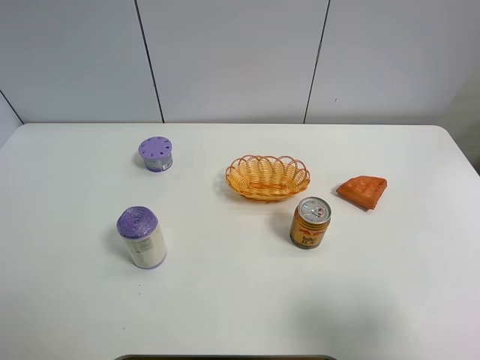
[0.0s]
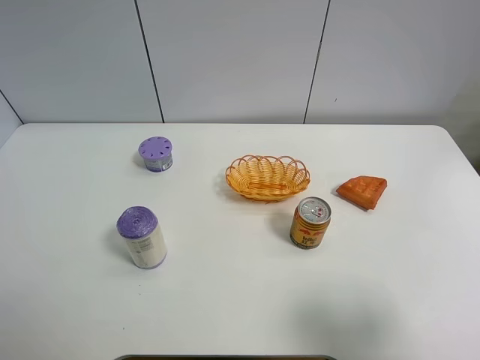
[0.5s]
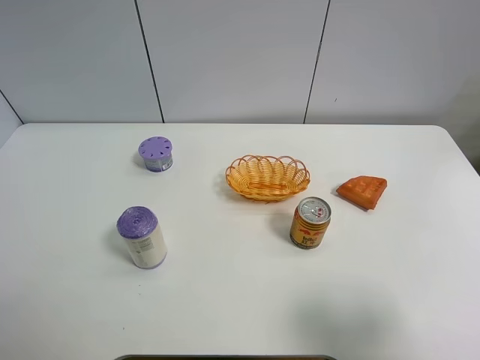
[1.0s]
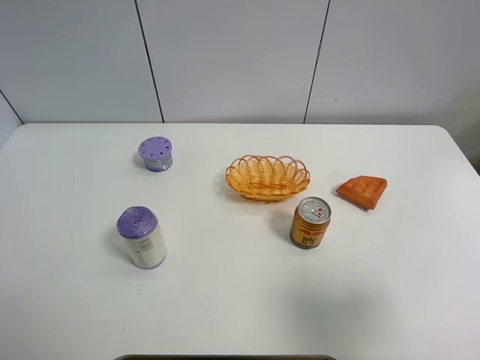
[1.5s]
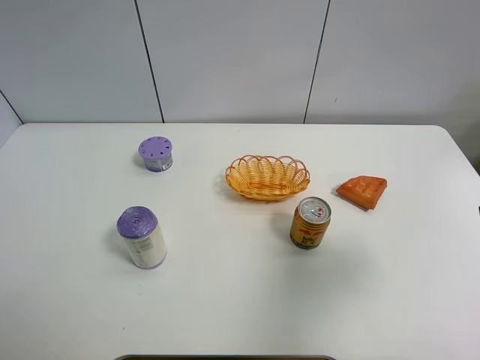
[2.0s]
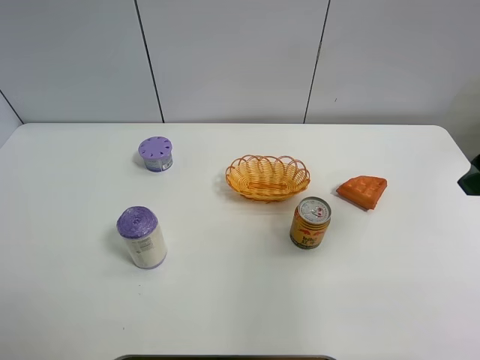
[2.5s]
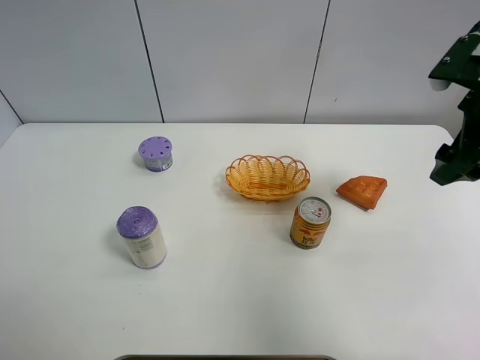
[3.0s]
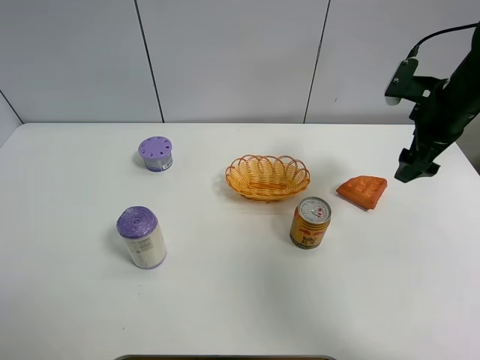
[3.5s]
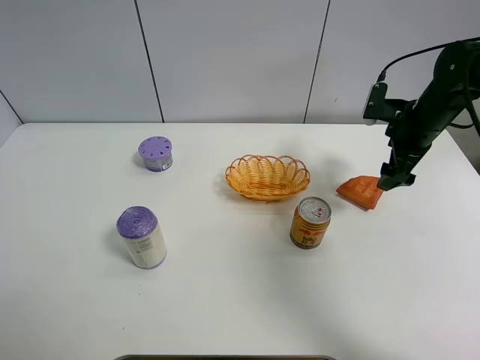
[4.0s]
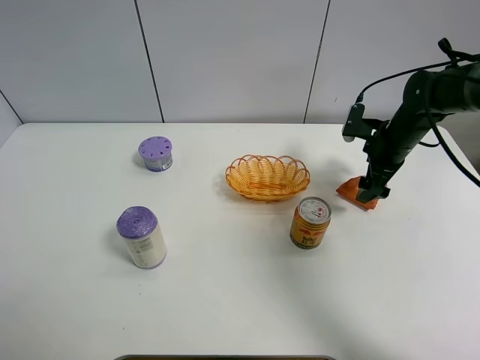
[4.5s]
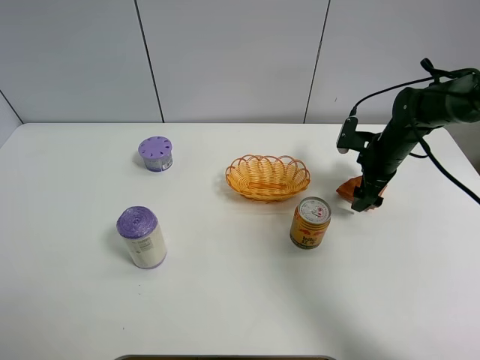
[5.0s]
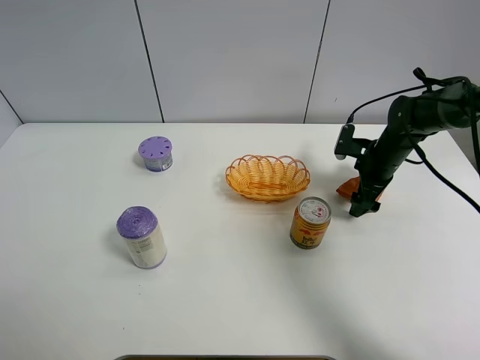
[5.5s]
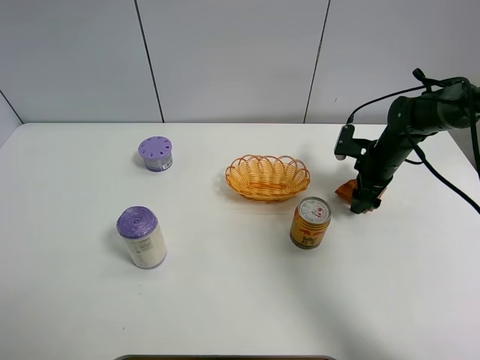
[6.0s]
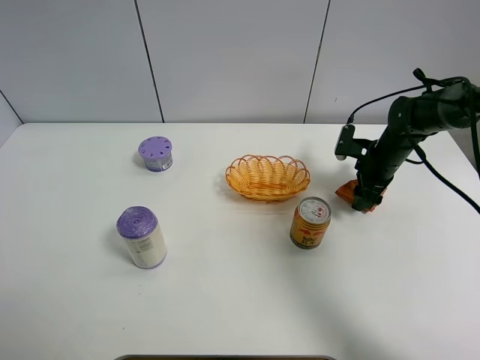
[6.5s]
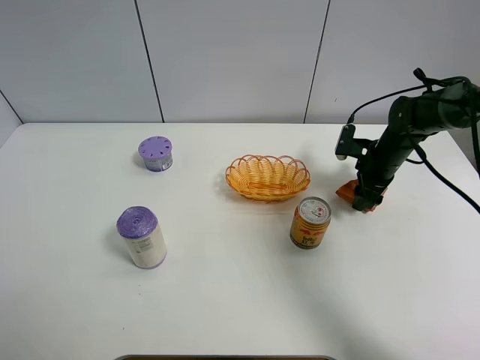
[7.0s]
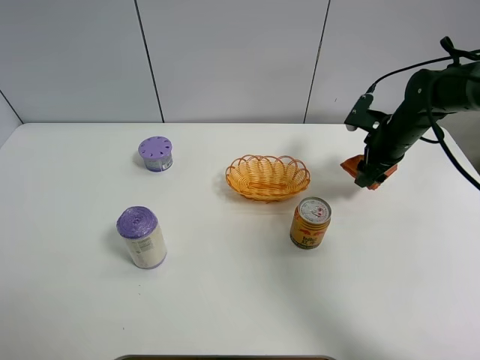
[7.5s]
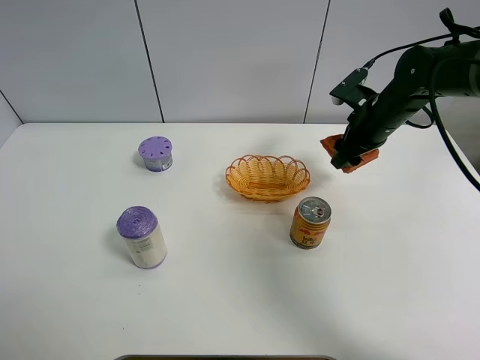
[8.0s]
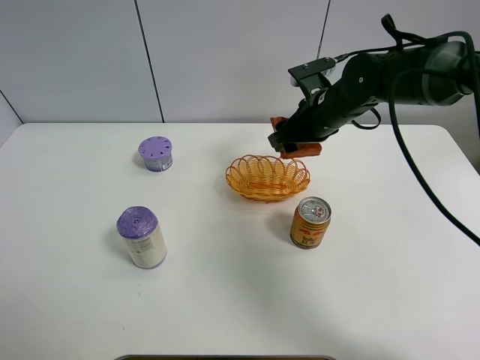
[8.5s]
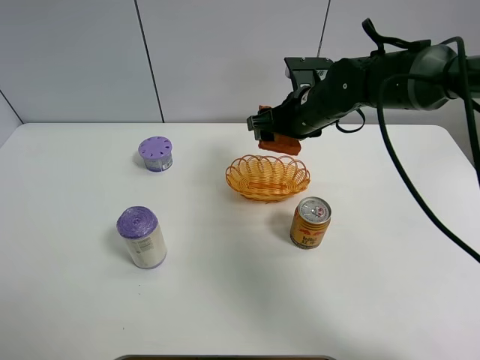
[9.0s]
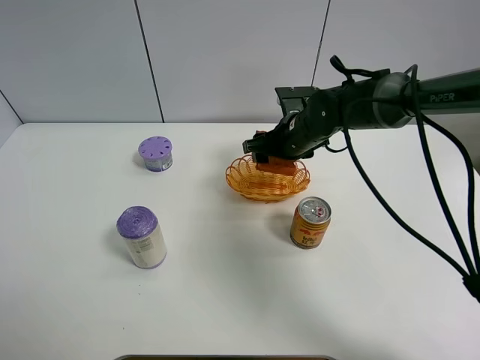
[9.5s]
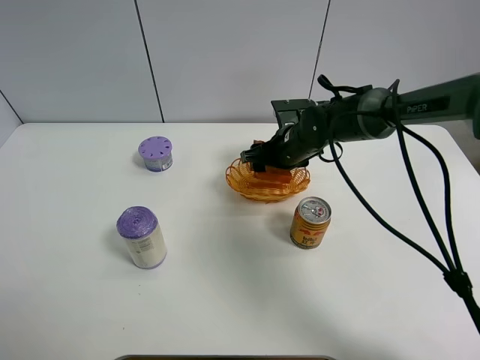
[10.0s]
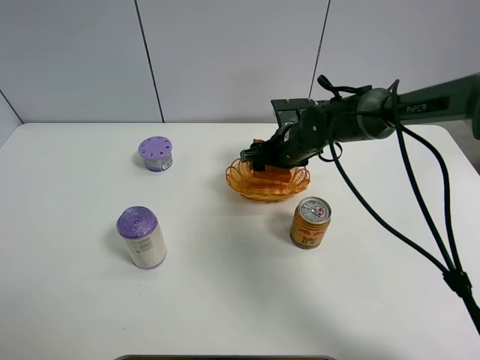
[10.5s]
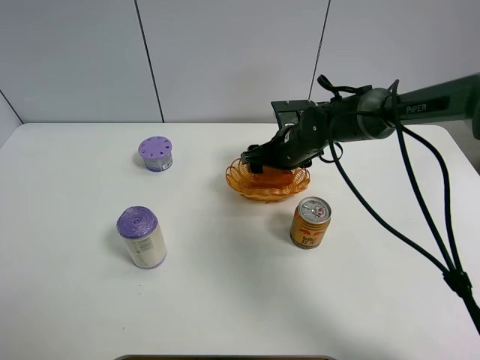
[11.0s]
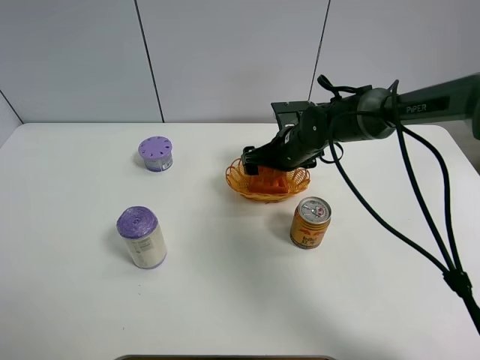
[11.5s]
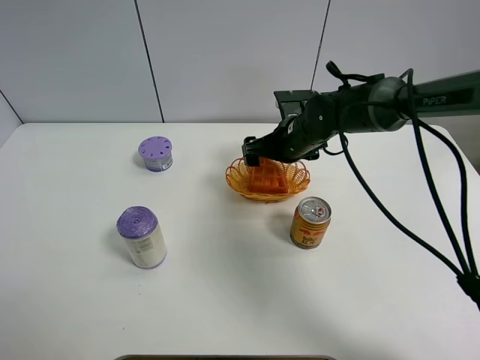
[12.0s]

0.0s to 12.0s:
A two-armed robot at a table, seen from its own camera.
Task of the whole recording: Put the bakery in the basket.
Step, 0.0s to 6.0s: Grasp the bread with right gripper.
0.0s to 2.0s: The right gripper shifts approximately 10 cm forward and upward.
2.0s to 4.0s: The right gripper heads forward and downward, covering about 30 cm.
4.0s to 6.0s: The right gripper moves downward, about 10 cm, and closes its fingers.
6.0s to 8.0s: The right gripper heads upward and to the left, covering approximately 10 cm.
8.0s to 10.0s: The right gripper goes some 15 cm to the left and downward.
10.0s to 12.0s: The right gripper opens its fingers.

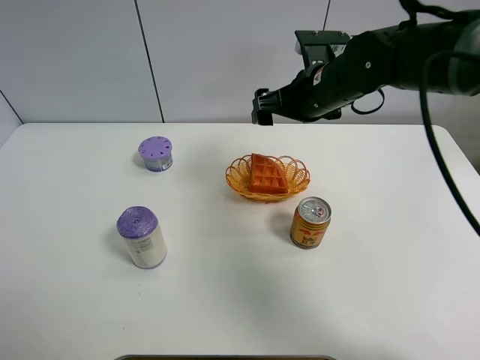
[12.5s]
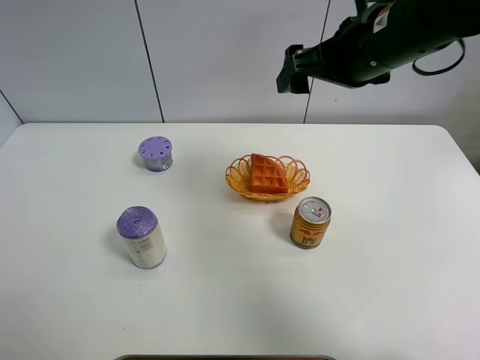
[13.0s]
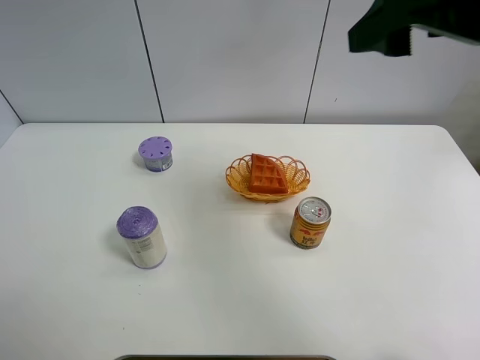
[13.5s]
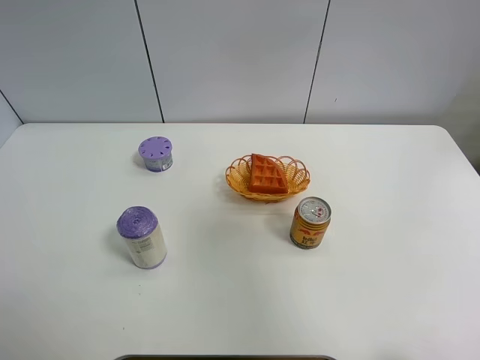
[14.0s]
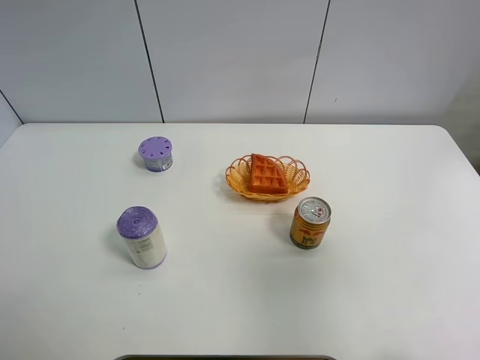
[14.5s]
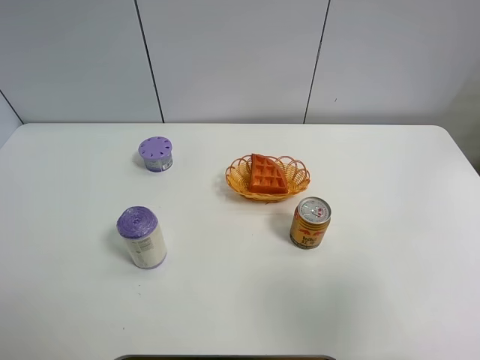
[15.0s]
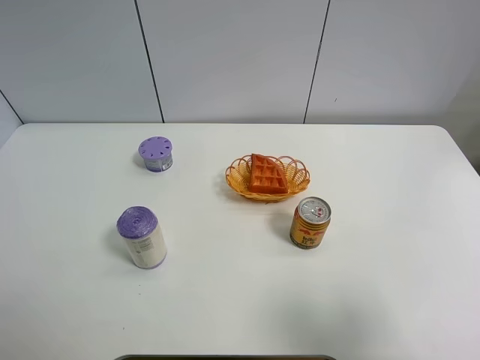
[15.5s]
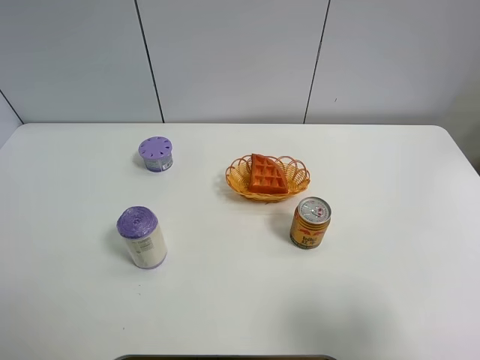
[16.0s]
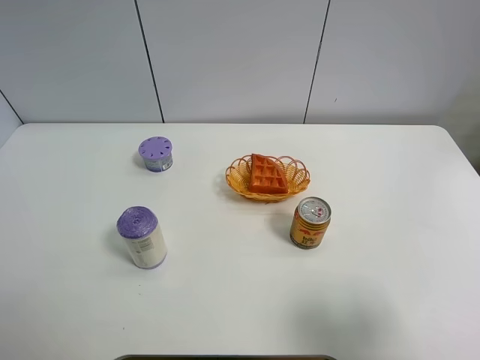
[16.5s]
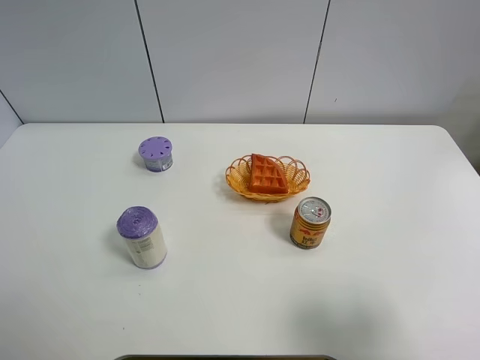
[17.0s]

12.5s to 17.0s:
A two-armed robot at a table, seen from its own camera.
Task of the whole recording: Put the bakery in the basket.
12.5s to 14.5s: The right gripper moves backward, to the right and upward, some 35 cm.
14.5s to 17.0s: The right gripper goes some 10 cm downward and backward.
